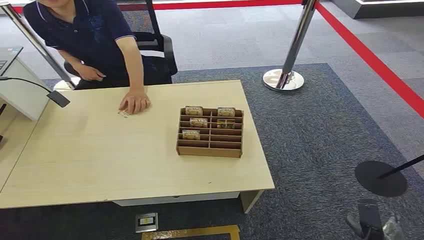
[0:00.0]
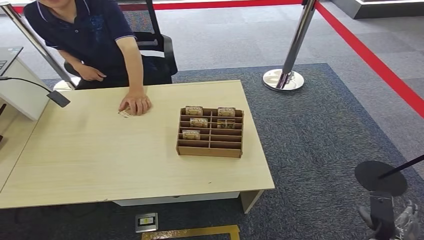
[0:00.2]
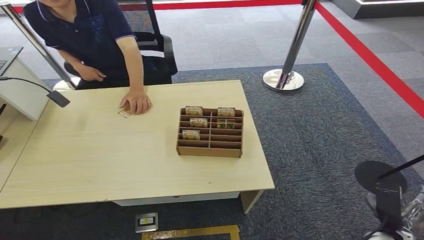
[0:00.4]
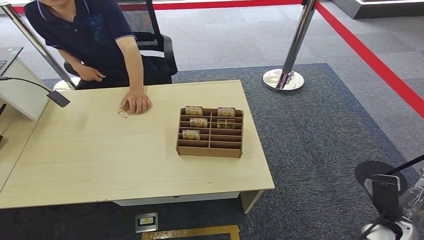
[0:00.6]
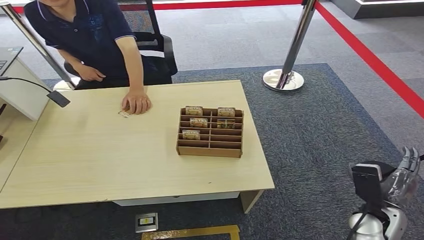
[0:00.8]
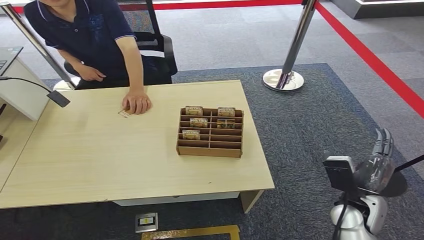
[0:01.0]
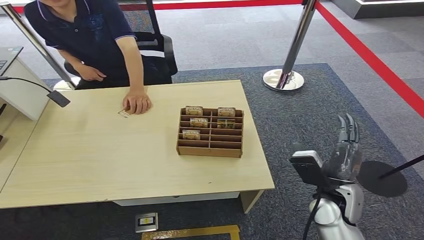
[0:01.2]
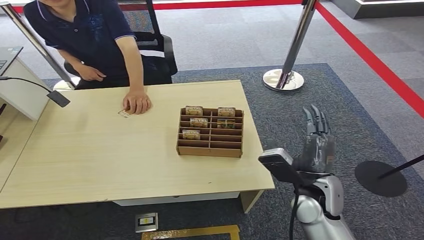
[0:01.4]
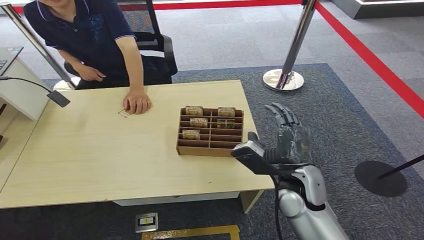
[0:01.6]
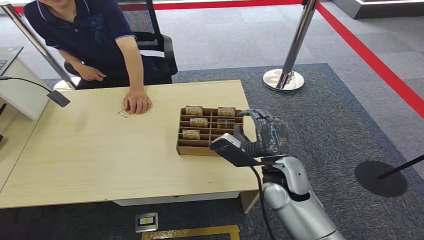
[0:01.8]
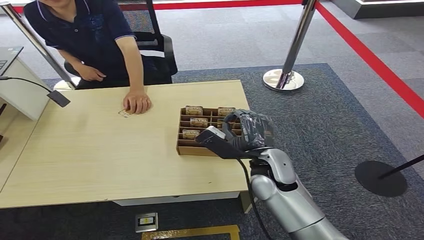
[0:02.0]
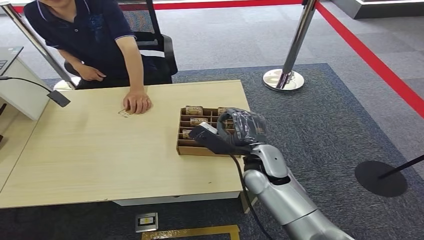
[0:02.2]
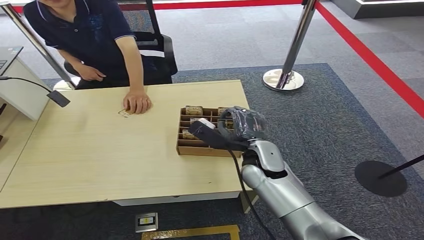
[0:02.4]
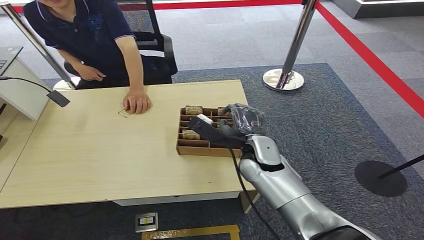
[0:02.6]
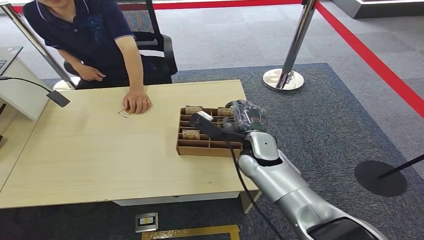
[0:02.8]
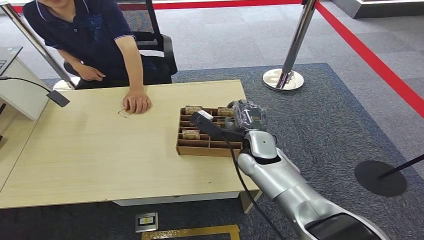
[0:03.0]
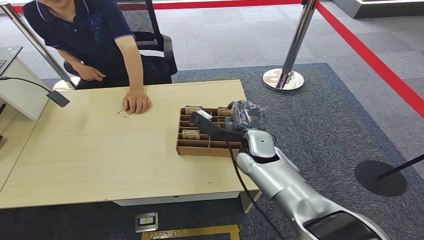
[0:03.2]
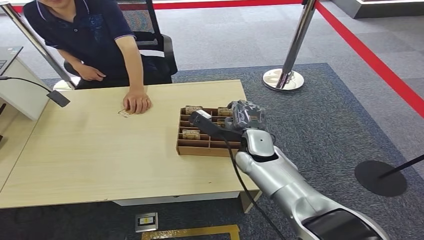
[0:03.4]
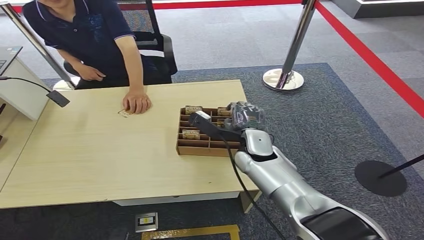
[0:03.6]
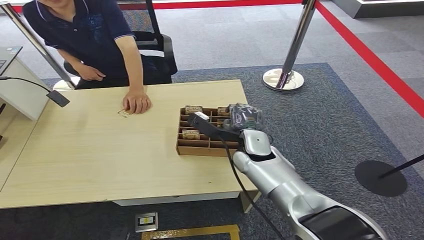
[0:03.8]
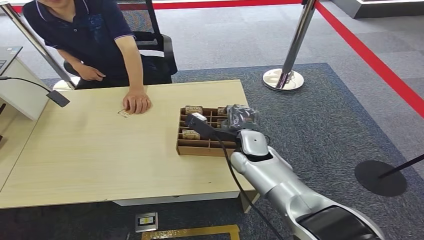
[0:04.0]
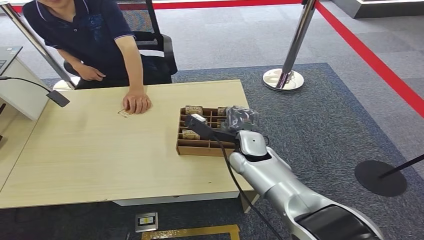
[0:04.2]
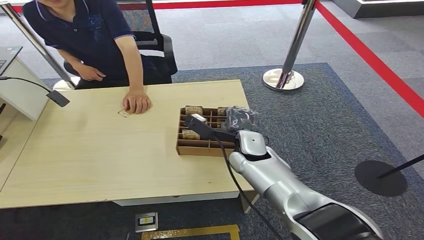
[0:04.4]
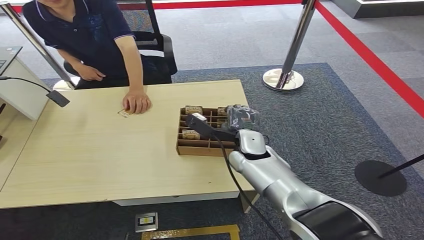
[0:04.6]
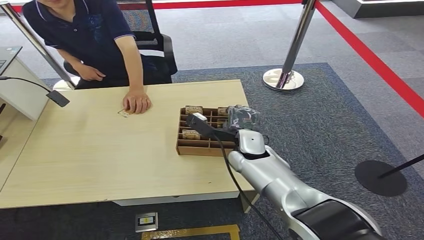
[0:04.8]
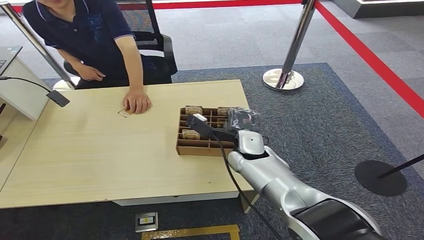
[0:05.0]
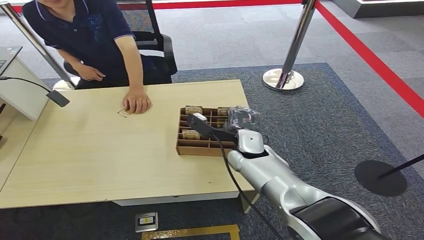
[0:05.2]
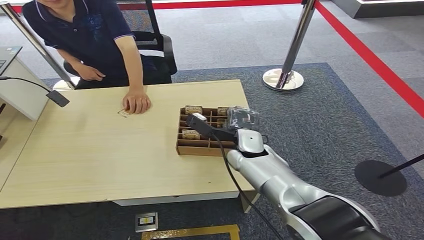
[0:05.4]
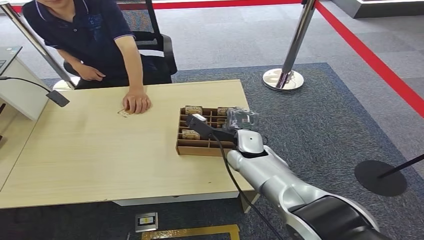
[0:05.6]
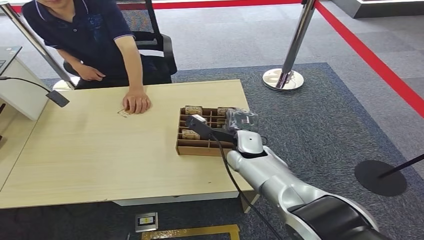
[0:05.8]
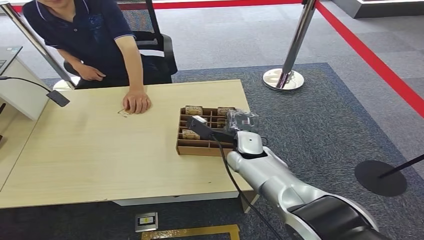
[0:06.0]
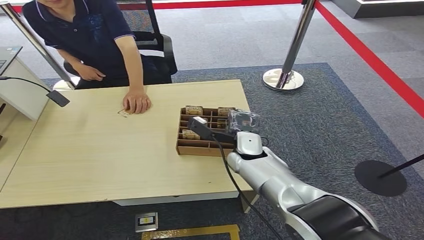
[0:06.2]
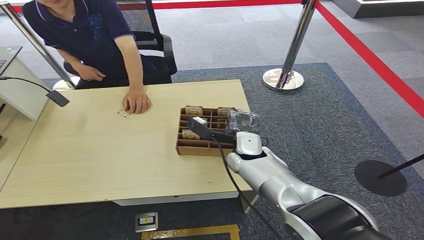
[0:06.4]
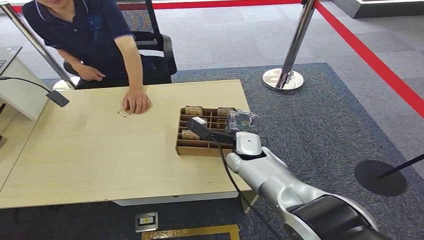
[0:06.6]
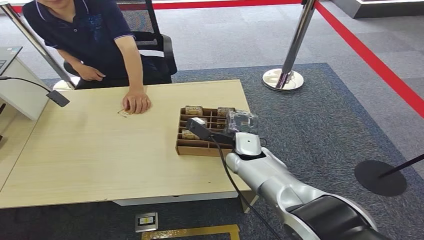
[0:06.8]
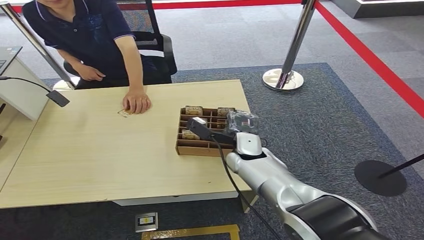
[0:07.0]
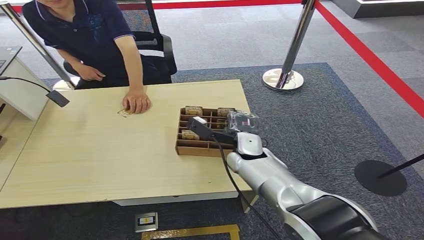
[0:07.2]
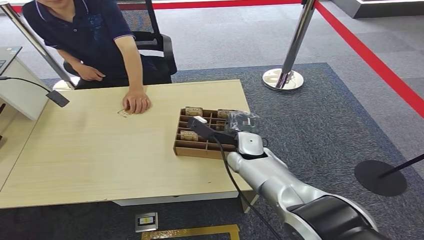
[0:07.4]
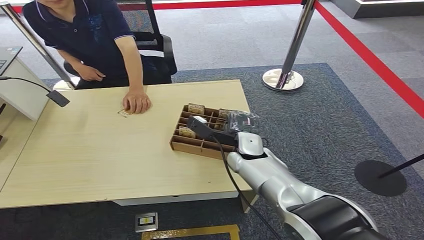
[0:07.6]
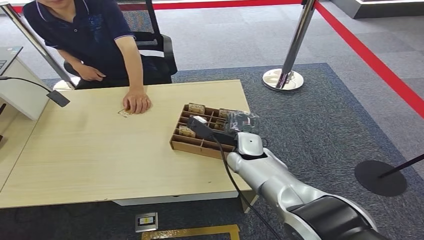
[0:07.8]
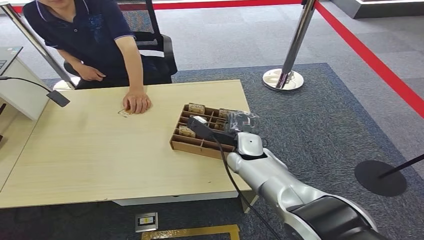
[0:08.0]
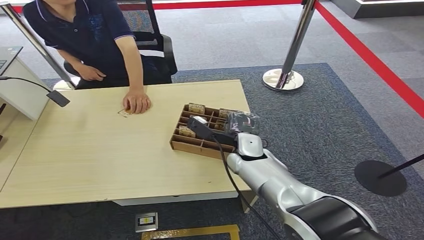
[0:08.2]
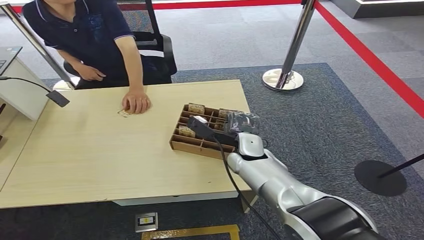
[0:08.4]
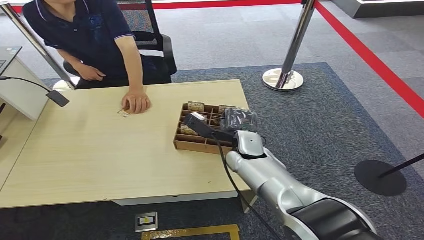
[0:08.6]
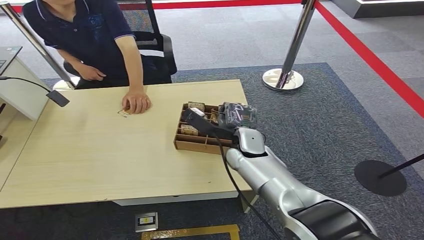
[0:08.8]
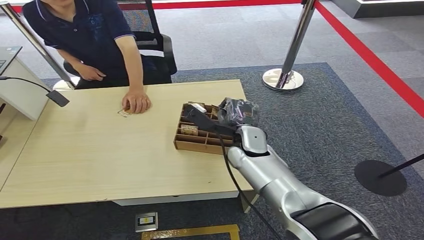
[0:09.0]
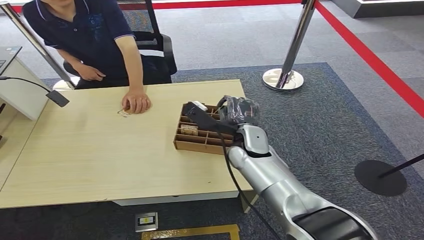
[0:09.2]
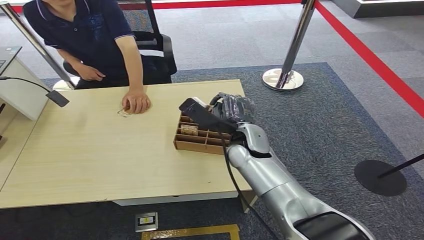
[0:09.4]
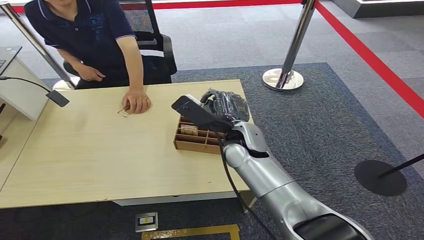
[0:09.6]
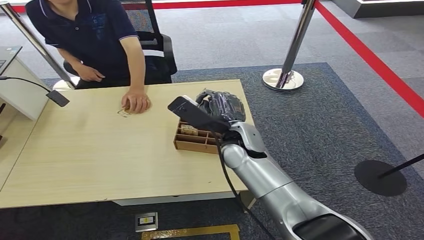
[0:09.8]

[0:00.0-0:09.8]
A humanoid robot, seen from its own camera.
Step, 0:00.0 to 0:09.6: Pick up the key card from the card box.
0:01.4 to 0:02.8: The right hand goes about 15 cm forward and to the left.
0:02.8 to 0:07.0: The hands make only small movements.
0:07.0 to 0:08.4: Both hands stay about where they are.
0:08.4 to 0:09.8: The right hand moves upward, approximately 10 cm.

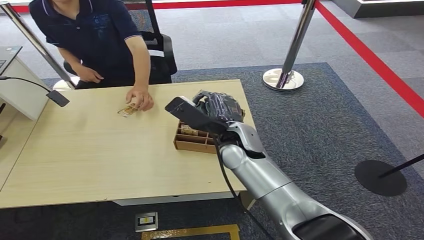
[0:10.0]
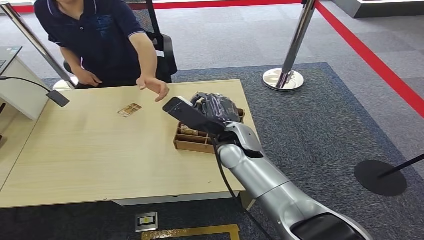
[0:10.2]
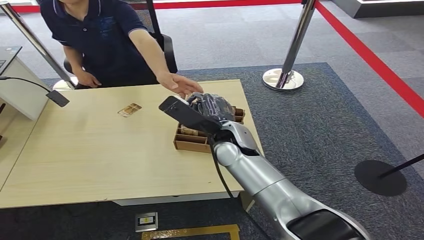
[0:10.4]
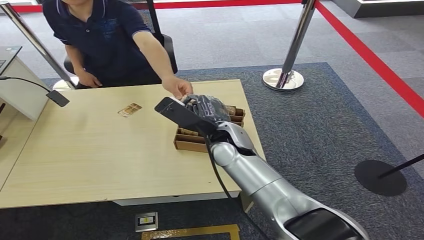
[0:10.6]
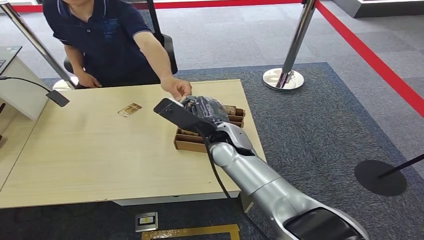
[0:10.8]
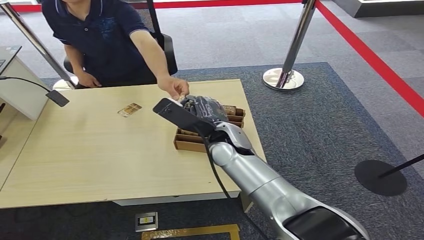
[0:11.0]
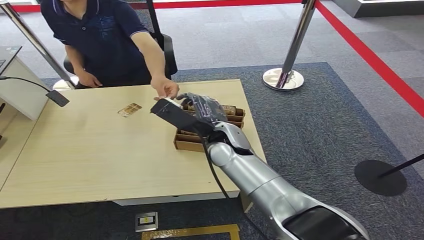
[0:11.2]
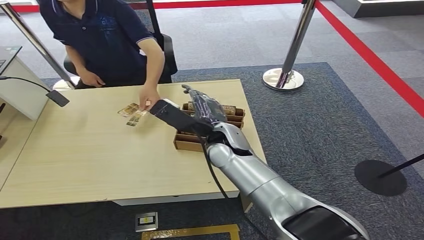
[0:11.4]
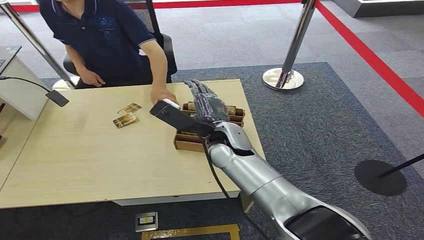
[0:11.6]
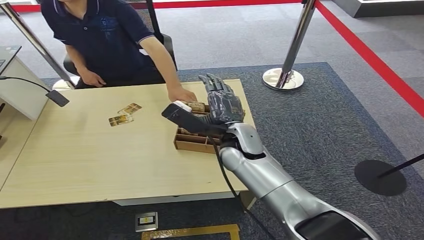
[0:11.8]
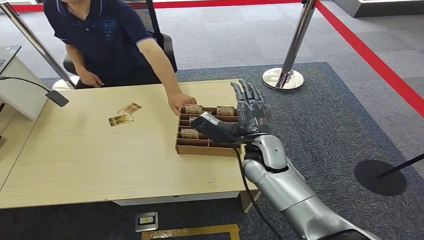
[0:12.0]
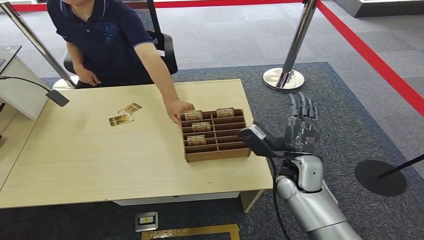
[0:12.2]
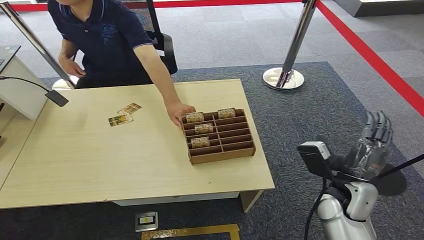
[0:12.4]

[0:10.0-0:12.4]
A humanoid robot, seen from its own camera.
Step, 0:10.0 to 0:12.4: Hand the key card to the target.
0:10.0 to 0:11.2: The hands move only a little.
0:11.2 to 0:12.4: The right hand is displaced to the right and backward by some 25 cm.
